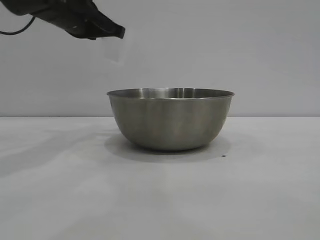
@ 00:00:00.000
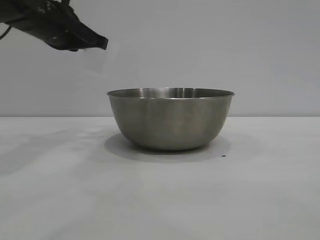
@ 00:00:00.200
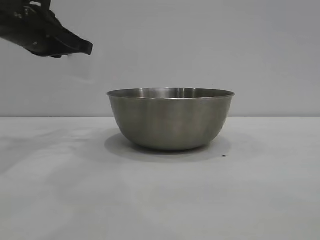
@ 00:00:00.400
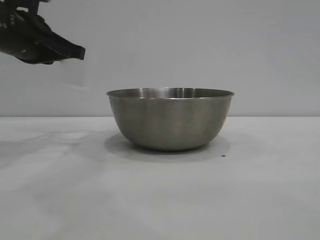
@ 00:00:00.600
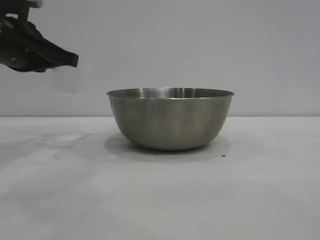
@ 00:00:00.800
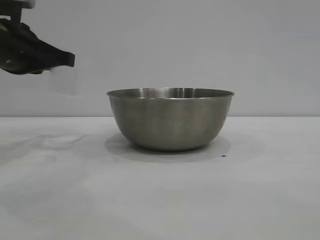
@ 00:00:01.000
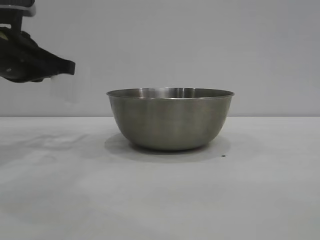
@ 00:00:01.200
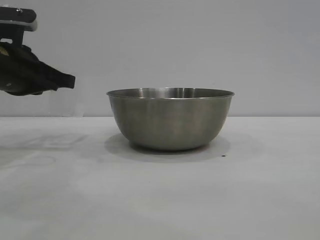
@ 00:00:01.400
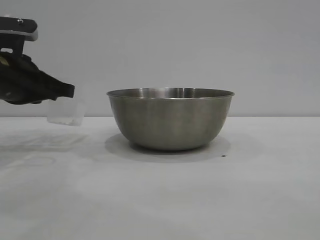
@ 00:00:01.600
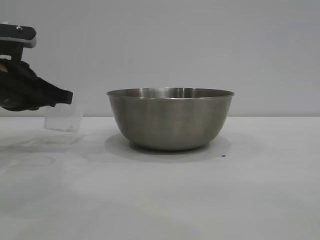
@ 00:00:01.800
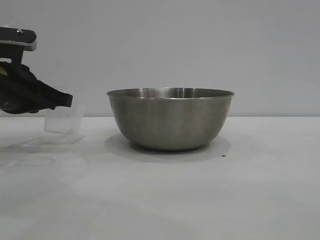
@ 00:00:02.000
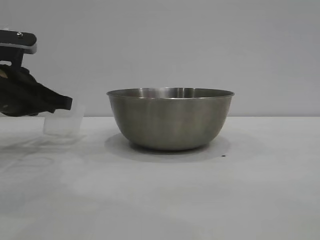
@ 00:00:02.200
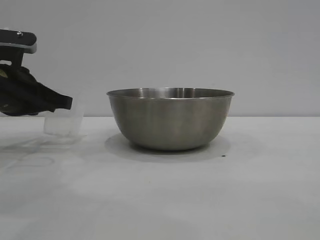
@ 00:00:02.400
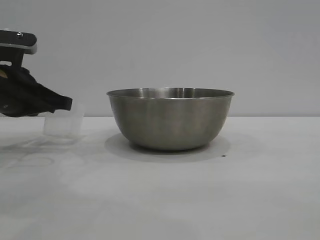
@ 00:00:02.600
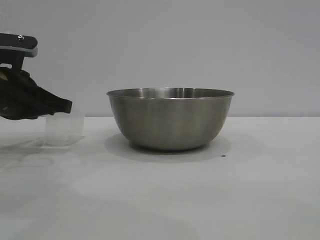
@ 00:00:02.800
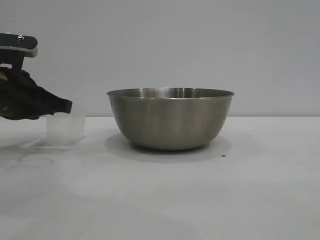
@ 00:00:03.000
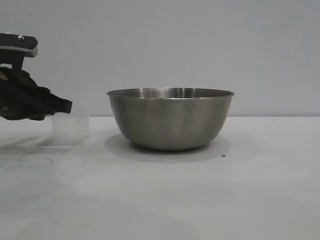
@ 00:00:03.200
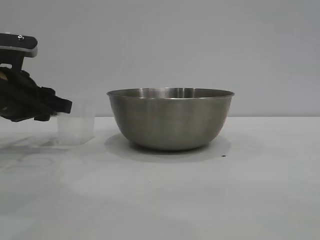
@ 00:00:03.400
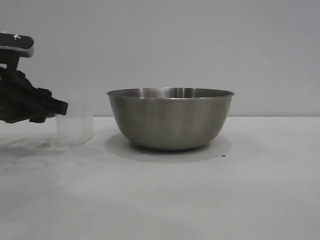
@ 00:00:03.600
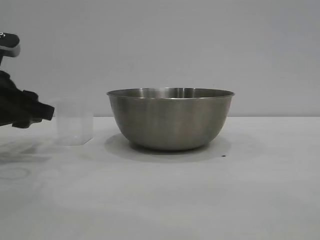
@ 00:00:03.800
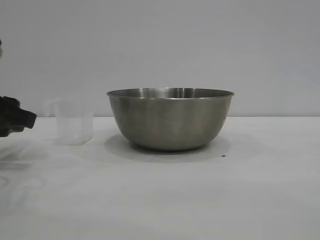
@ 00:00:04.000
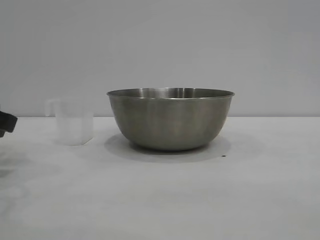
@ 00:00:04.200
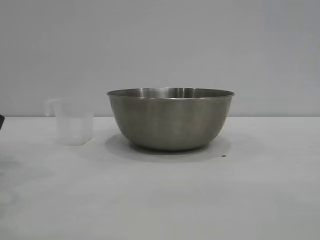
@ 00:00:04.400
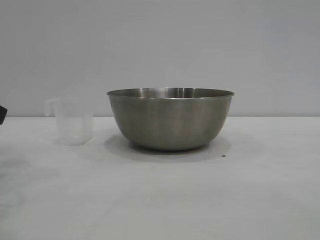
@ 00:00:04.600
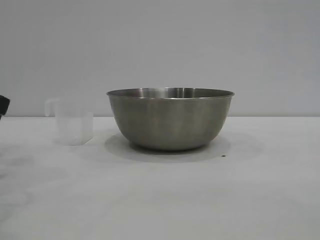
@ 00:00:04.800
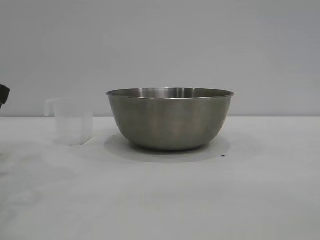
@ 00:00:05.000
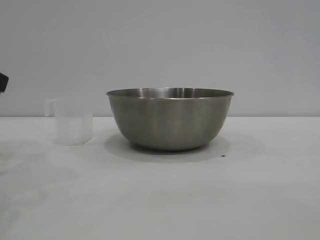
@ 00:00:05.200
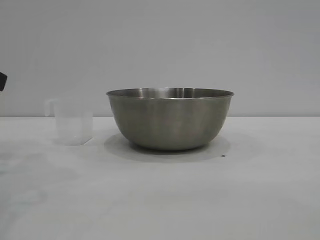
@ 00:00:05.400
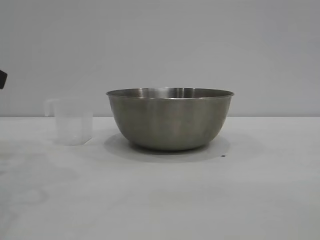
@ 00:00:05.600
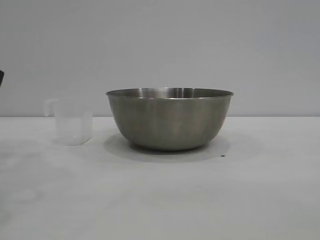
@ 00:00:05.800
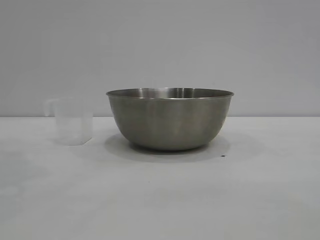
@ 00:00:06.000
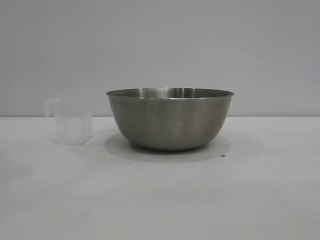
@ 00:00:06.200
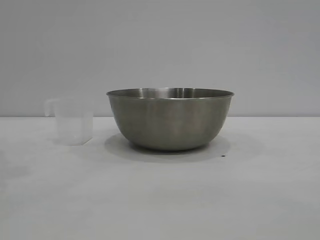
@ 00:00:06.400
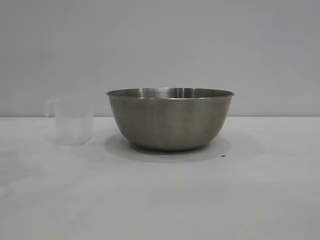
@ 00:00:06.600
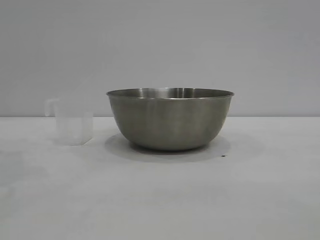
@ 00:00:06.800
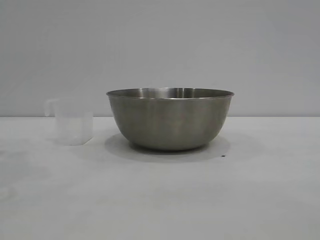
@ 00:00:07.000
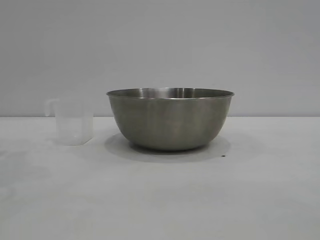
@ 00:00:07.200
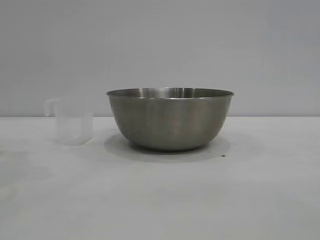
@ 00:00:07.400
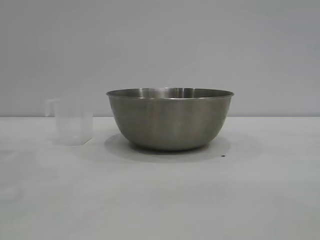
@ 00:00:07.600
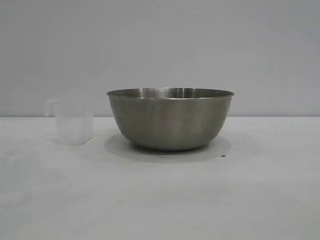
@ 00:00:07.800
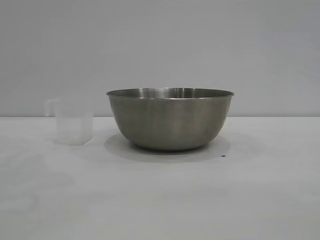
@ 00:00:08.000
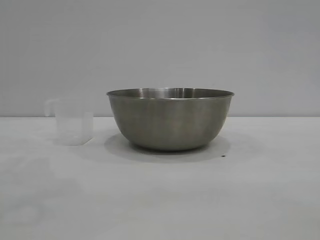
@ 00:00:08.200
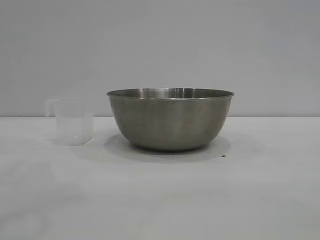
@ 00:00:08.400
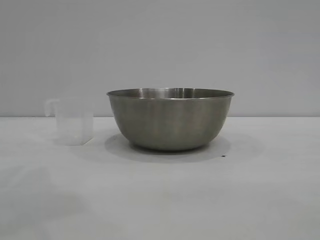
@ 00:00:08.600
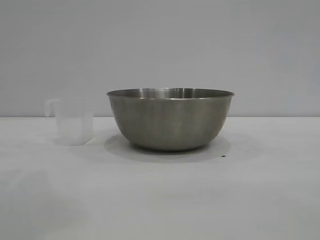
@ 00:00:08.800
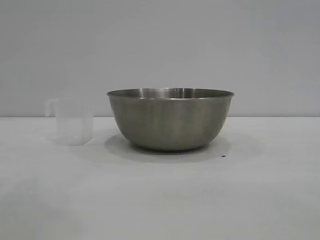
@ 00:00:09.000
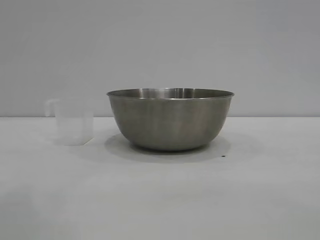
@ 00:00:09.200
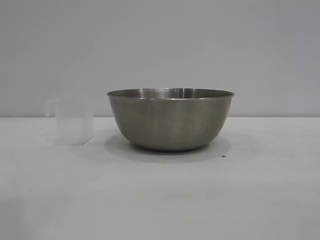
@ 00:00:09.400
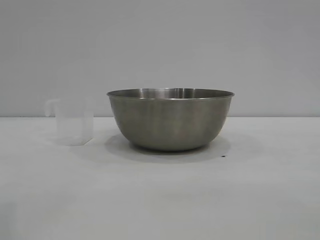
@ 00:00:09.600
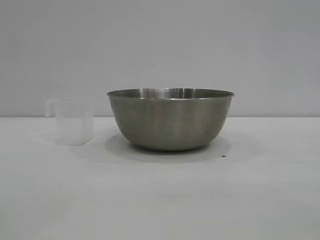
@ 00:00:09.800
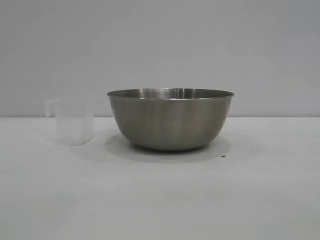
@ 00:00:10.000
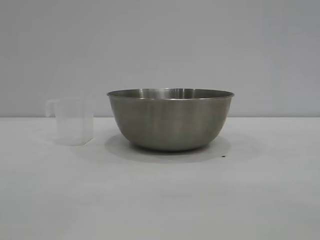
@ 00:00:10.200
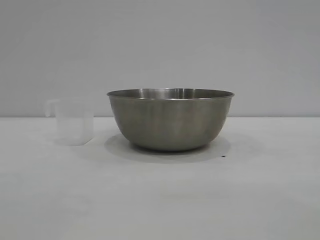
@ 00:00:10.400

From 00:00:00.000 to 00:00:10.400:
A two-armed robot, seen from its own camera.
Task of the whole recording: the right gripper grasp the rice container and place it in the center of the table, the left gripper grasp the rice scoop and pour the rice into the rice container.
Step, from 00:00:00.000 to 00:00:03.800: Place the cup on the table with the left gripper.
